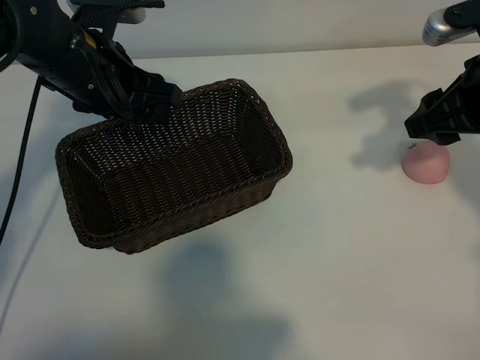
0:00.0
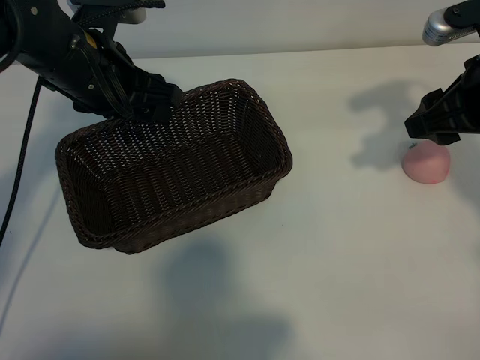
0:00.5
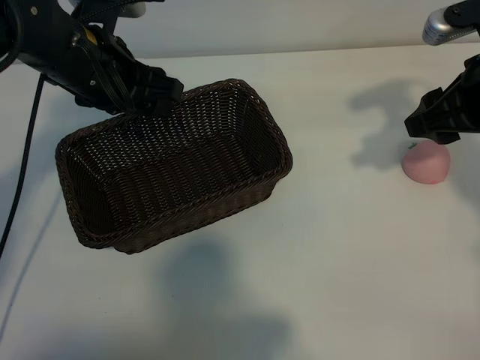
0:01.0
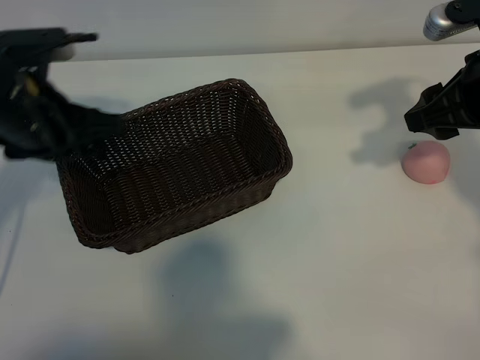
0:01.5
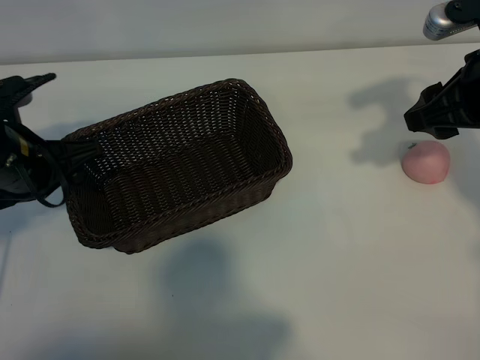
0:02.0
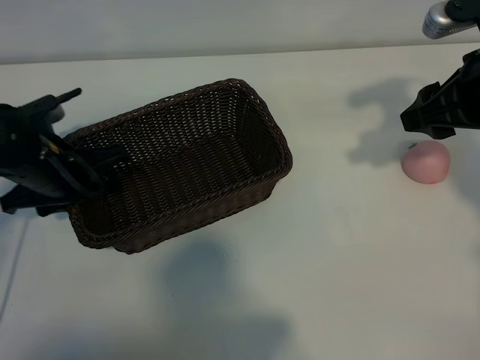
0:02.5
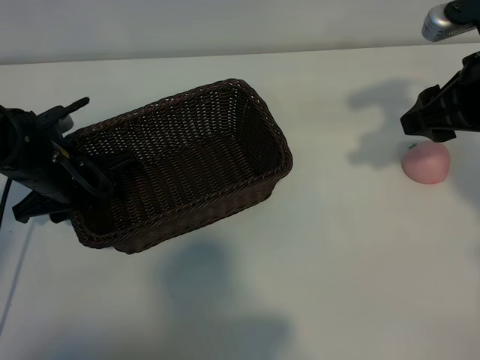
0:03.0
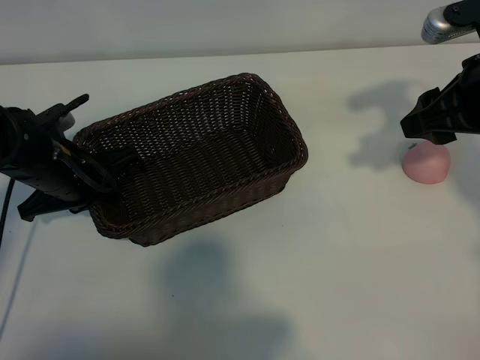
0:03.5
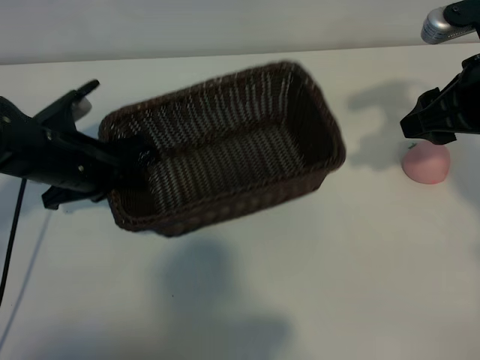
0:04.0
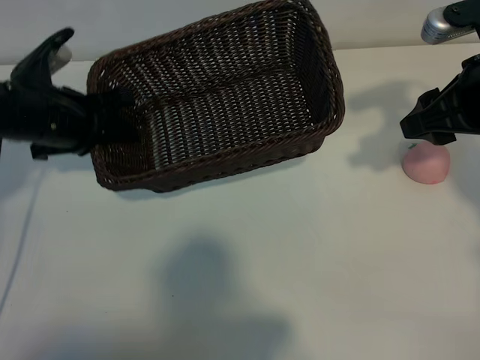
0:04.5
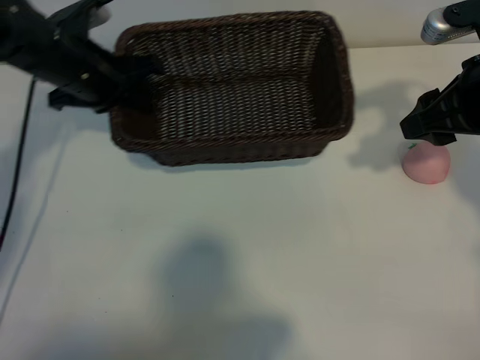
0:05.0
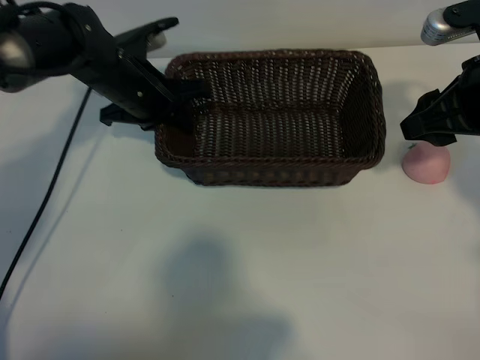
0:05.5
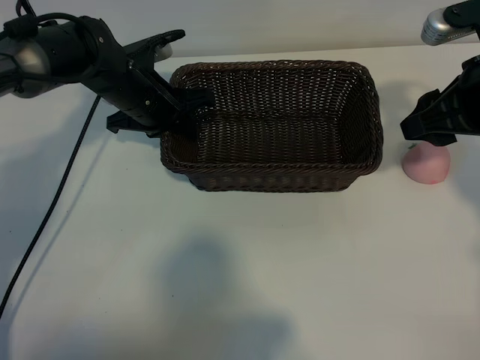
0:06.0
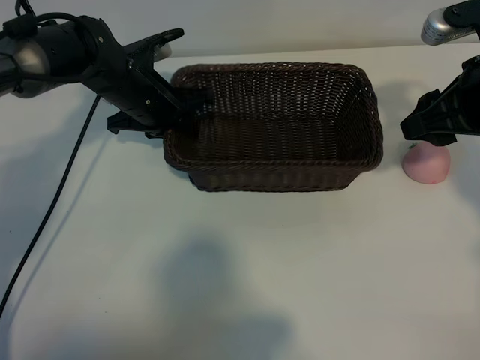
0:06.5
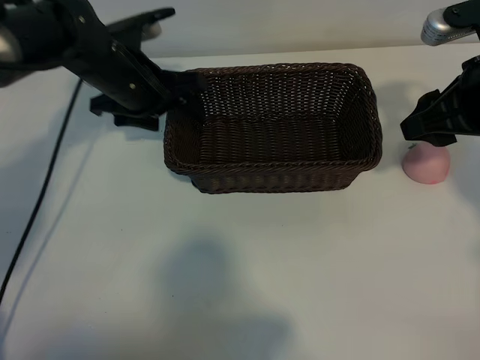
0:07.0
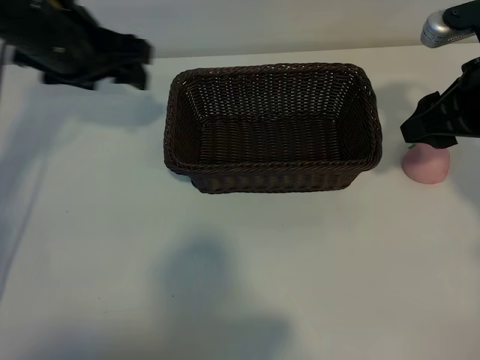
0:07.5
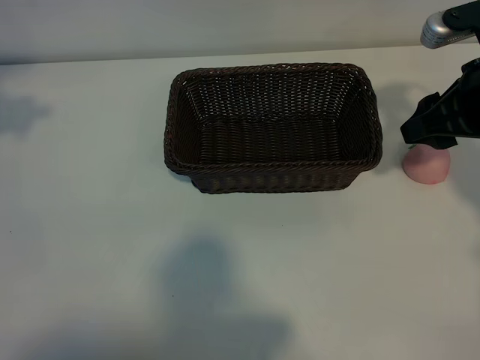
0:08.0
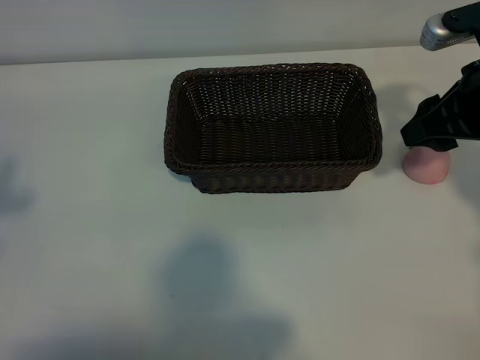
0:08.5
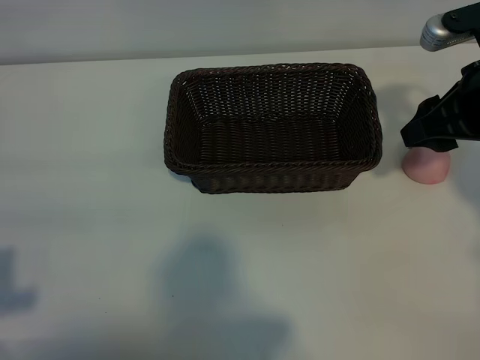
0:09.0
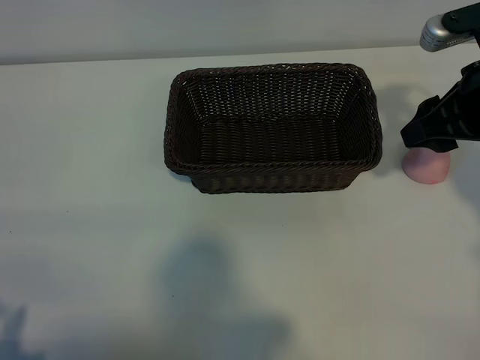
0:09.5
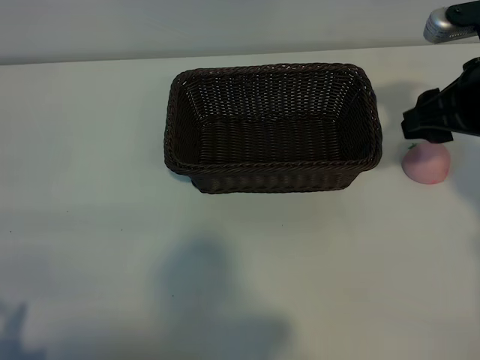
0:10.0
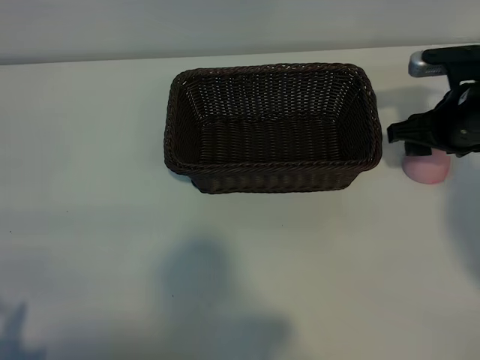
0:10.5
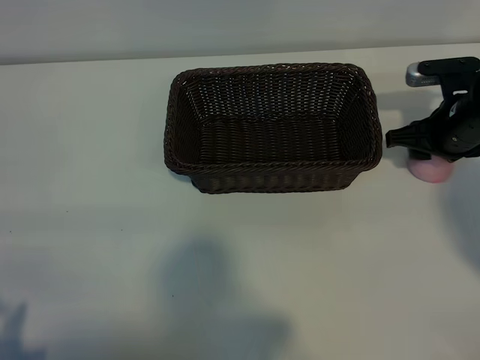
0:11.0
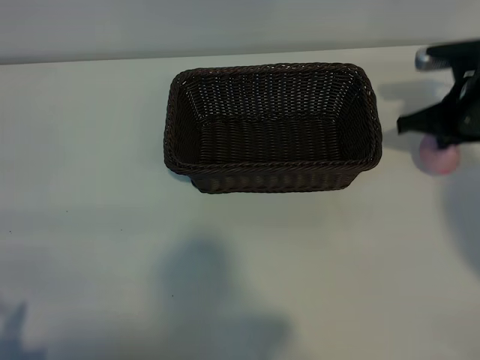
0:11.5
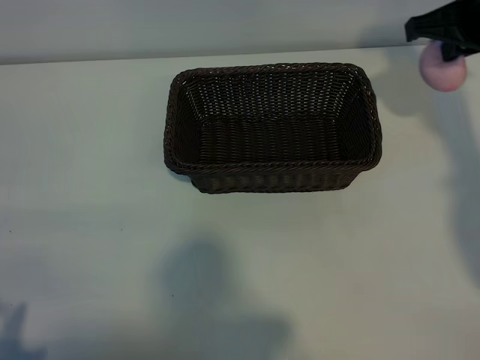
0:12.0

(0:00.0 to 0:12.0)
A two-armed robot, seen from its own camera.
Task of the whole recording: pick up the peach and put it into the basket.
Step, 0:01.0 - 0:03.0: Grasp the basket with left gripper.
Step, 0:03.5 - 0:07.0: Place the basket in the center of view with left gripper.
Step, 0:07.5 - 0:11.0: Grasp the peach with right gripper.

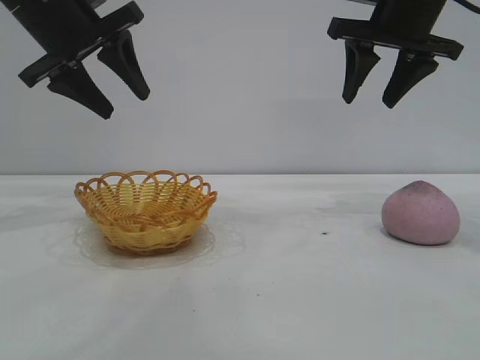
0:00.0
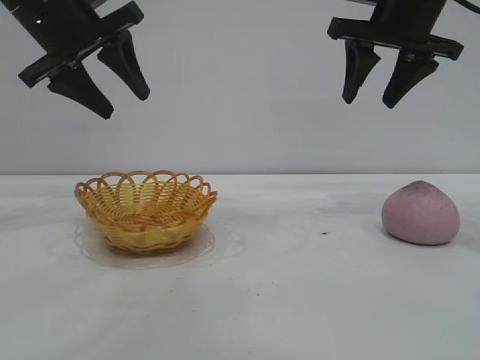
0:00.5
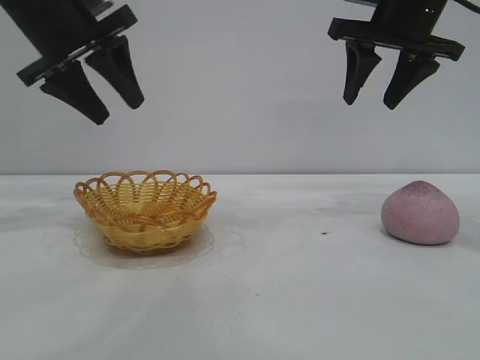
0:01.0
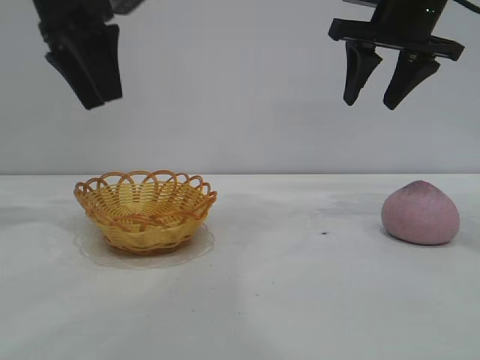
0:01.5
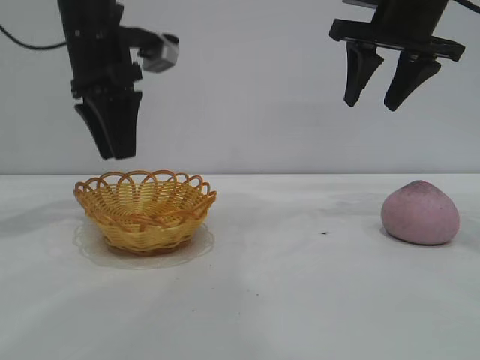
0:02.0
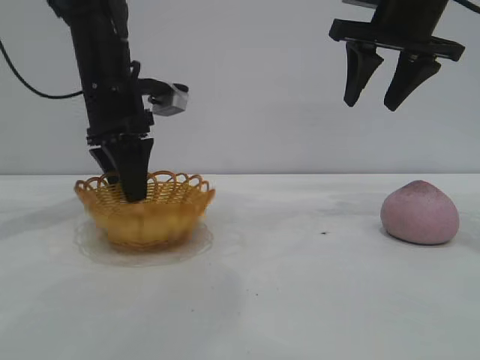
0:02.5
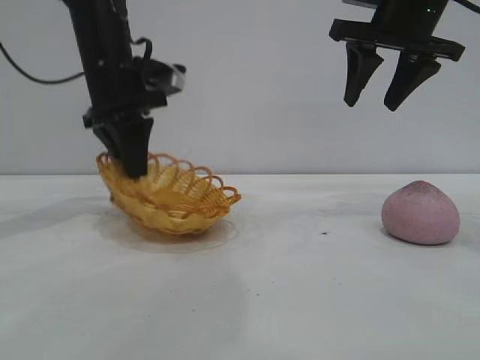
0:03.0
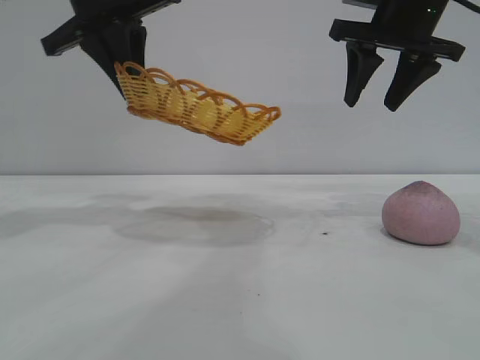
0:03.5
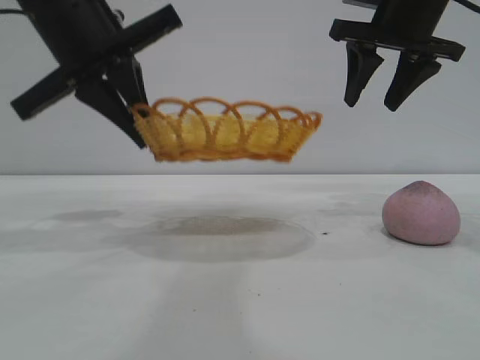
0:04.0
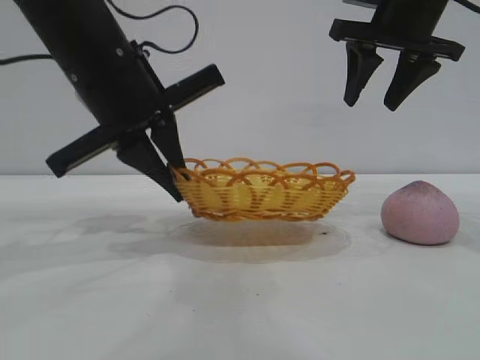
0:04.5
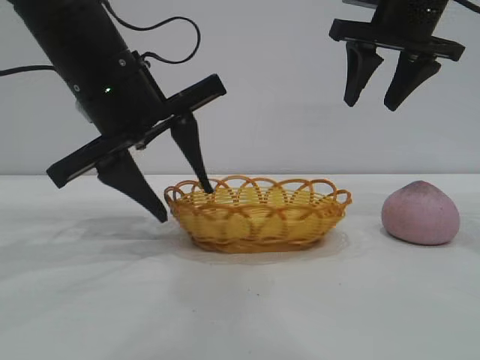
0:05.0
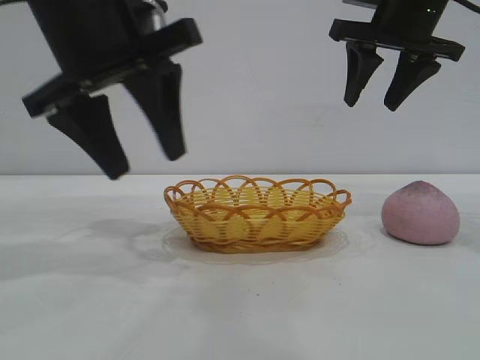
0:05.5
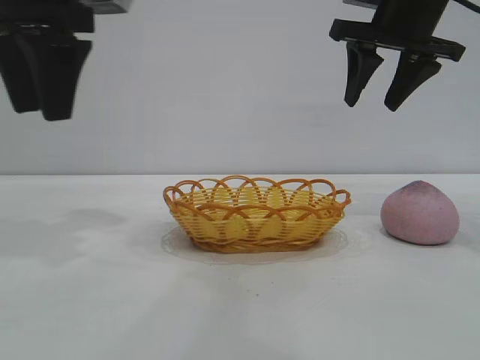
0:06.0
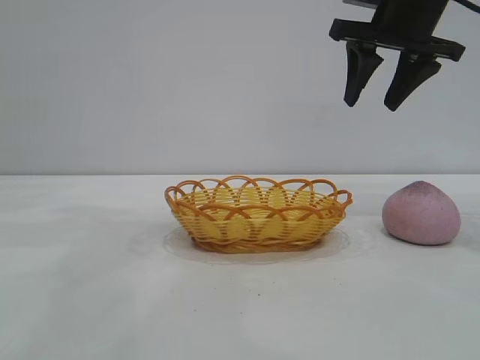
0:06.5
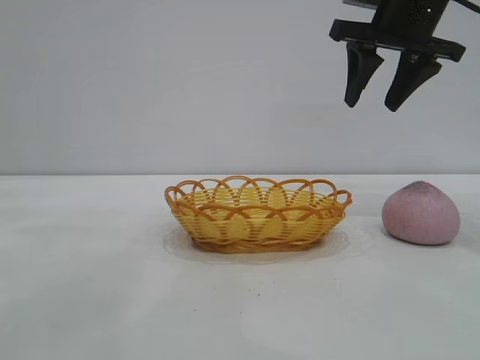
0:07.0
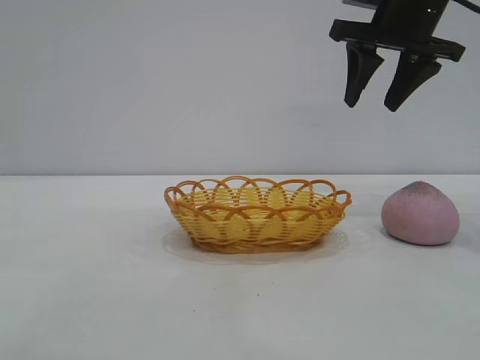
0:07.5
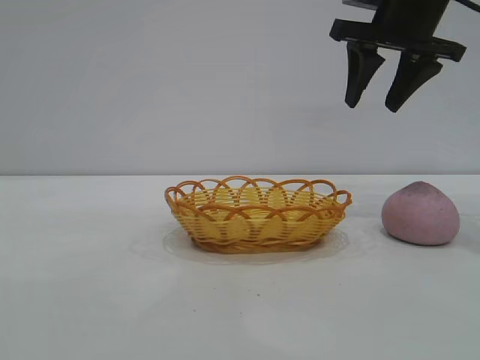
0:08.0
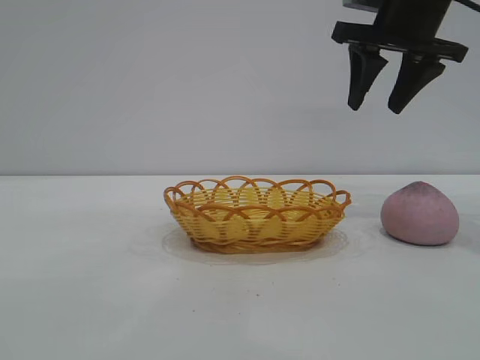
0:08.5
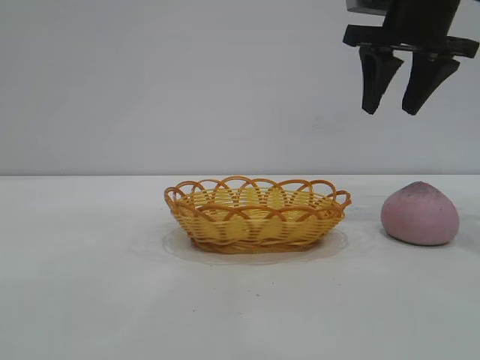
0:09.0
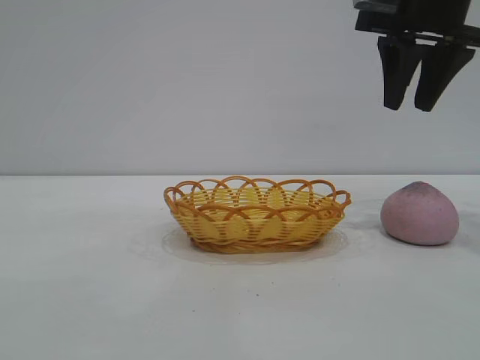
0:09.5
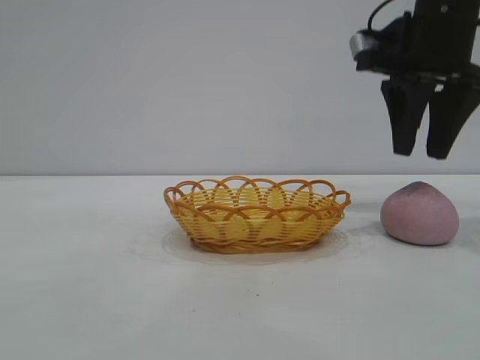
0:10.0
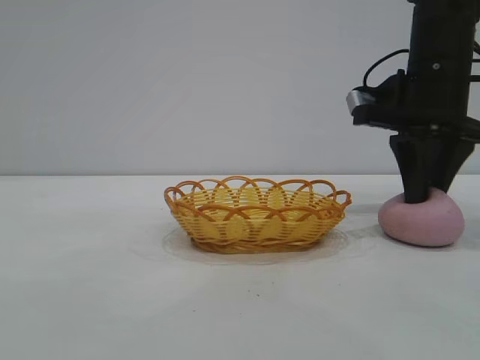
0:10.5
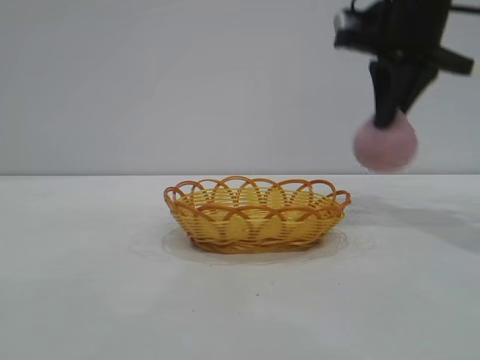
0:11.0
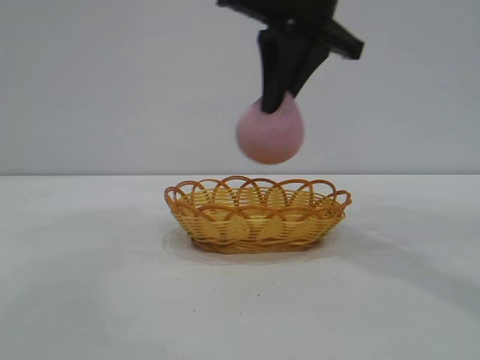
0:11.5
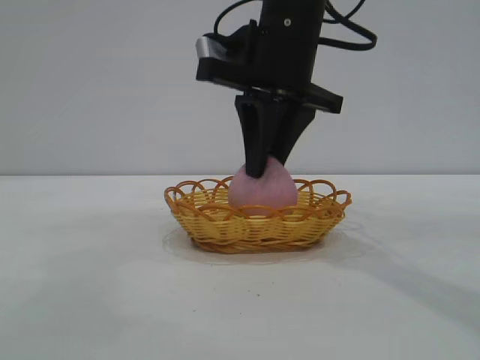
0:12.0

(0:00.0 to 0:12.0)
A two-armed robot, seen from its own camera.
Task of the whole recording: pick up the peach and put it into the basket.
Step, 0:00.0 - 0:05.5: Move the basket to the center of view.
Step, 0:06.0 - 0:10.5: Pick up the peach.
